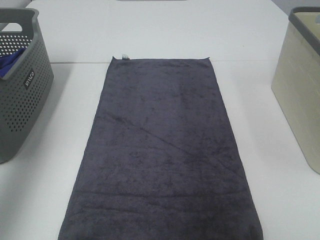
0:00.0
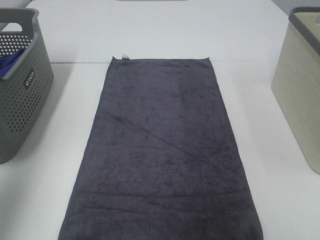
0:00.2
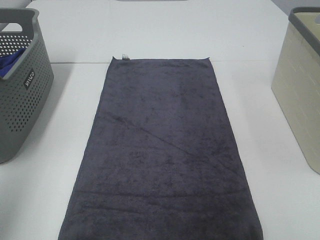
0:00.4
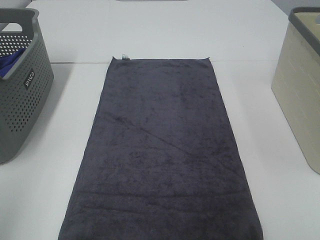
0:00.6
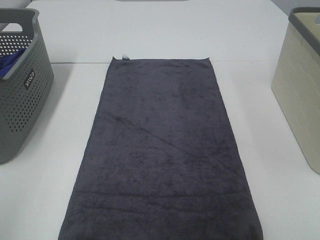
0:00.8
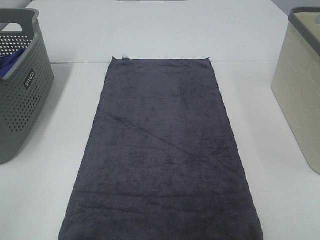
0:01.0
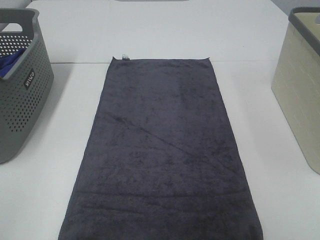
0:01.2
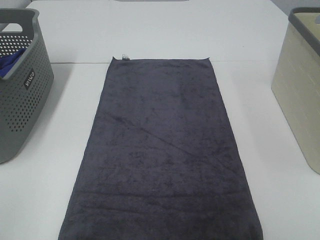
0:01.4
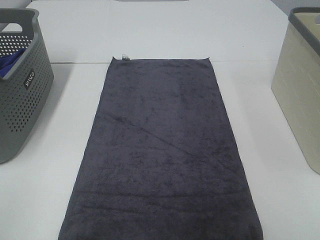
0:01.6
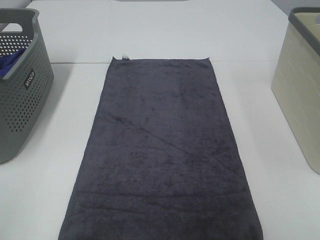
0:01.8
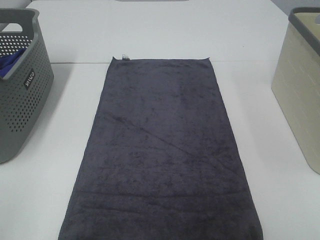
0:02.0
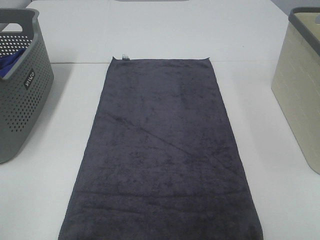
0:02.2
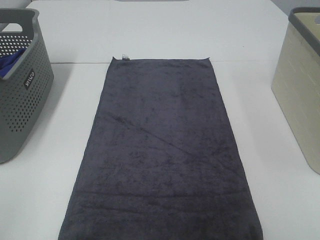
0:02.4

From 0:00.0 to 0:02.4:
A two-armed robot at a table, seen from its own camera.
Task of the whole recording: Remove the towel and place it.
From 0:00.0 to 0:01.2: The left gripper heads backward, covering about 25 cm.
